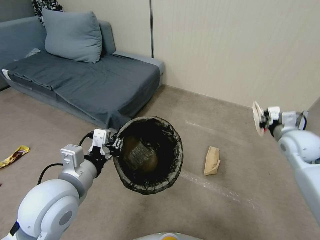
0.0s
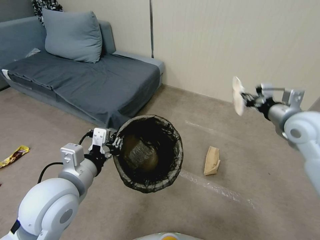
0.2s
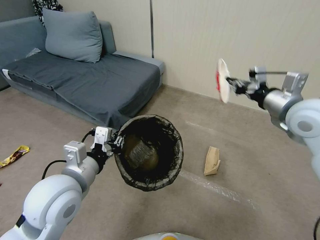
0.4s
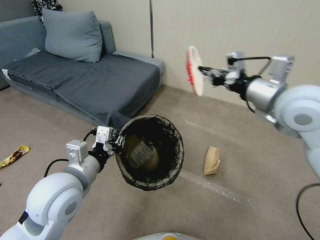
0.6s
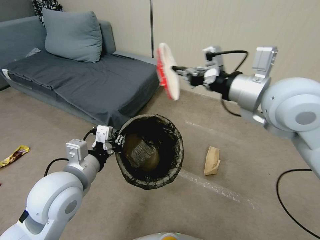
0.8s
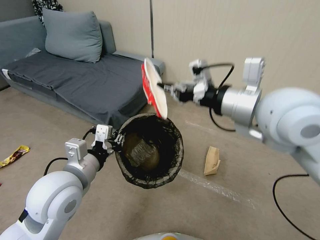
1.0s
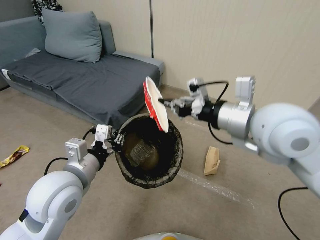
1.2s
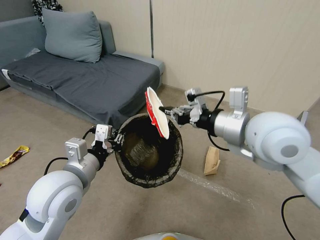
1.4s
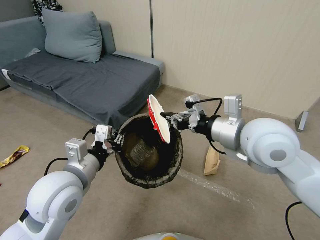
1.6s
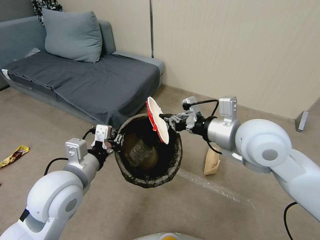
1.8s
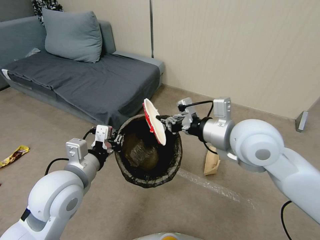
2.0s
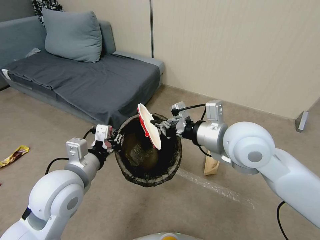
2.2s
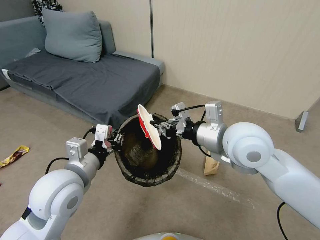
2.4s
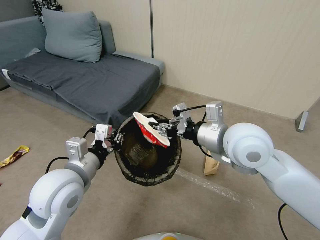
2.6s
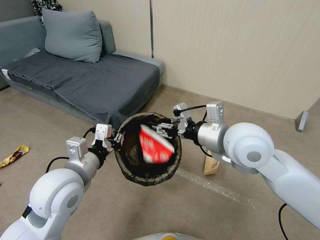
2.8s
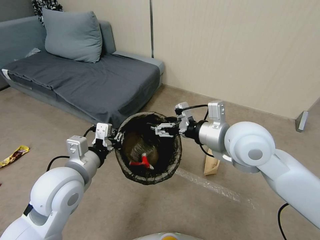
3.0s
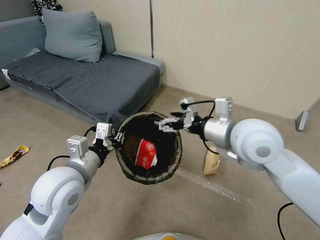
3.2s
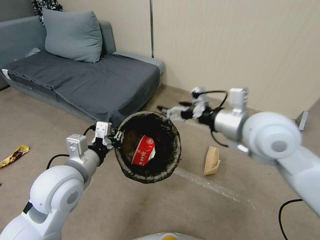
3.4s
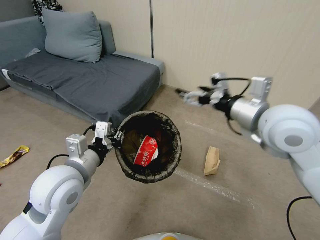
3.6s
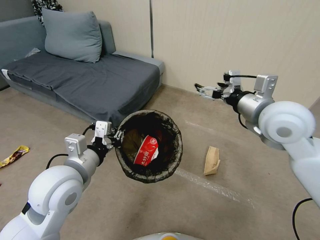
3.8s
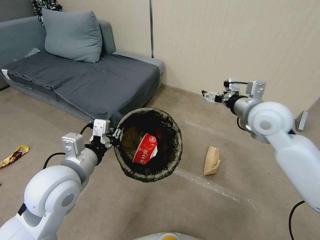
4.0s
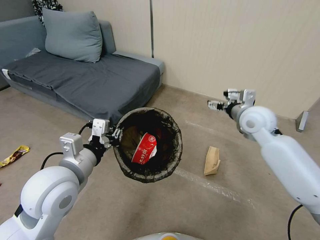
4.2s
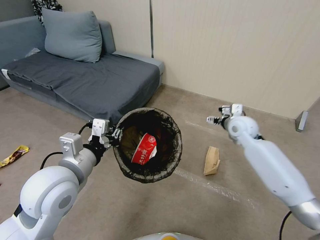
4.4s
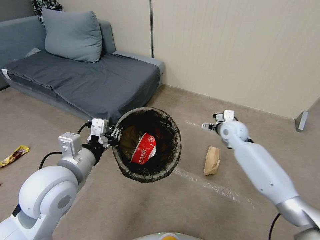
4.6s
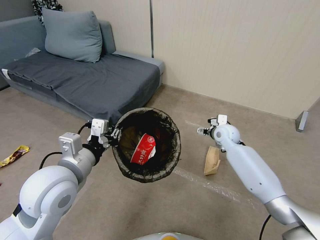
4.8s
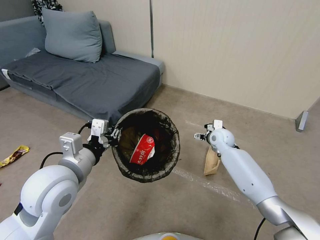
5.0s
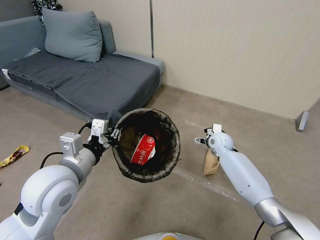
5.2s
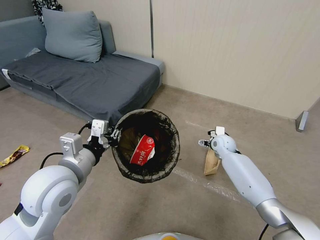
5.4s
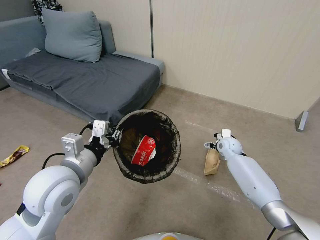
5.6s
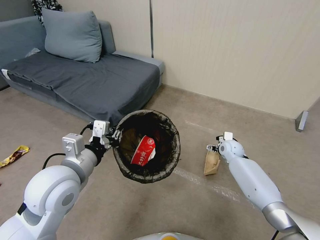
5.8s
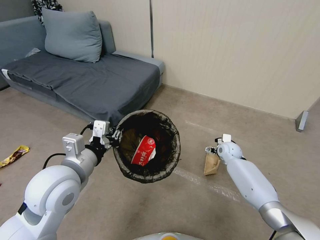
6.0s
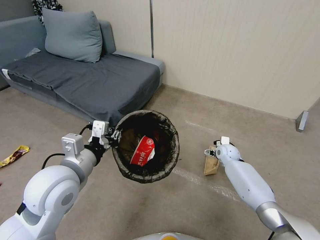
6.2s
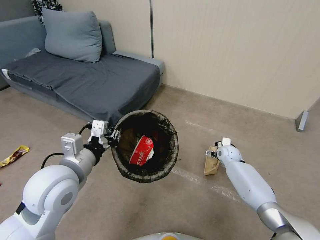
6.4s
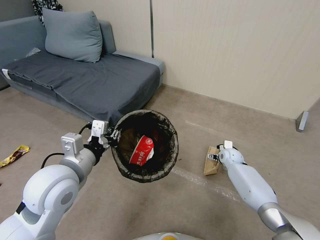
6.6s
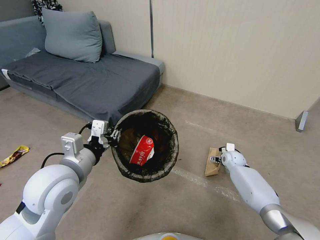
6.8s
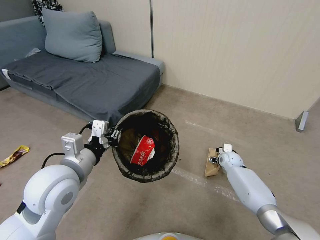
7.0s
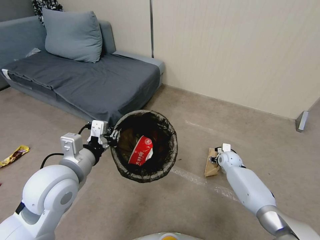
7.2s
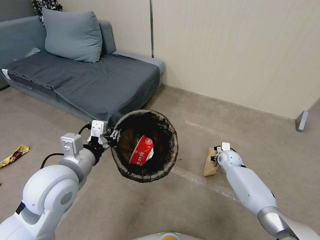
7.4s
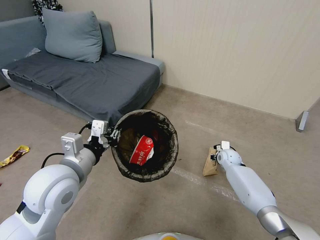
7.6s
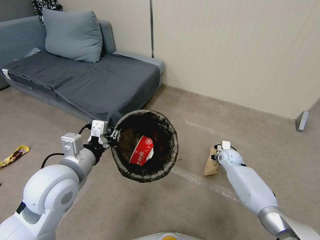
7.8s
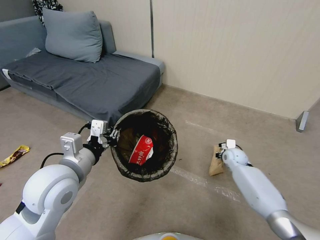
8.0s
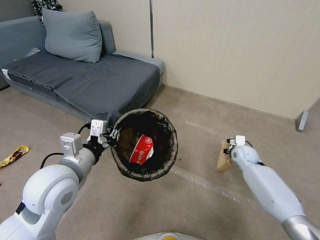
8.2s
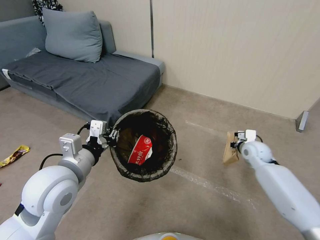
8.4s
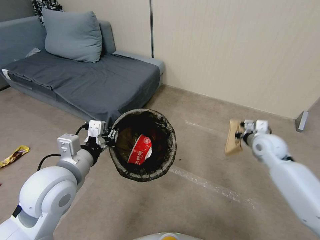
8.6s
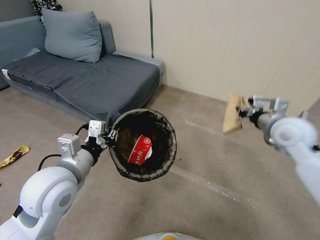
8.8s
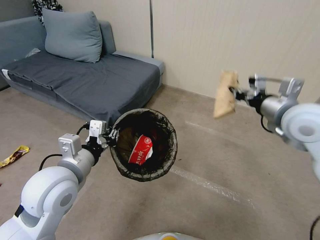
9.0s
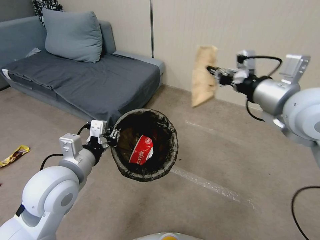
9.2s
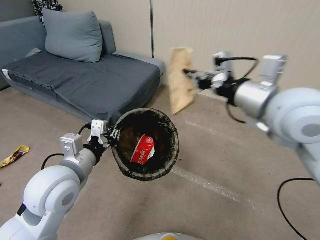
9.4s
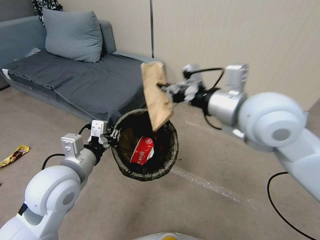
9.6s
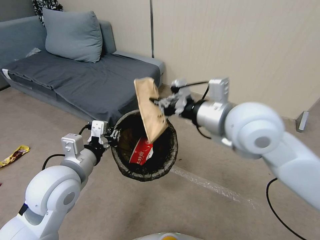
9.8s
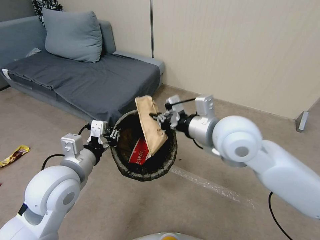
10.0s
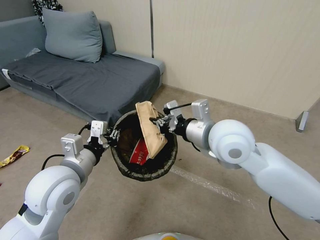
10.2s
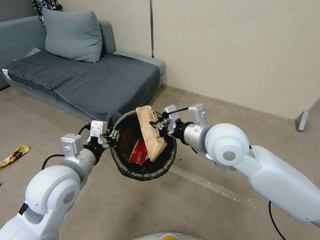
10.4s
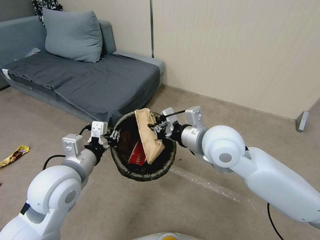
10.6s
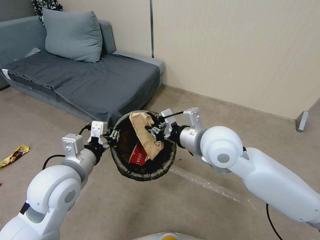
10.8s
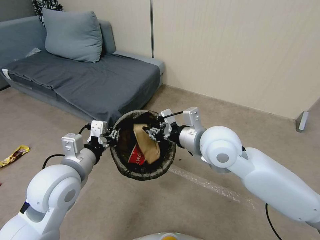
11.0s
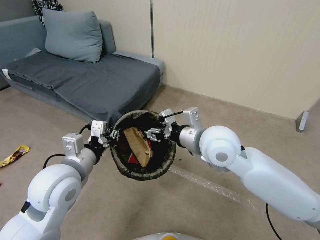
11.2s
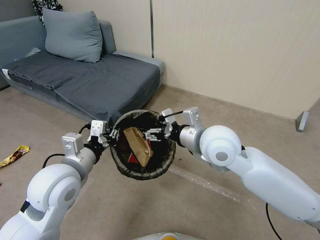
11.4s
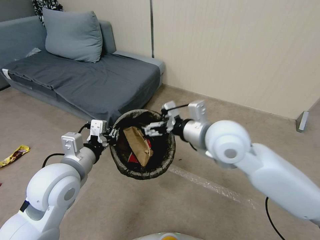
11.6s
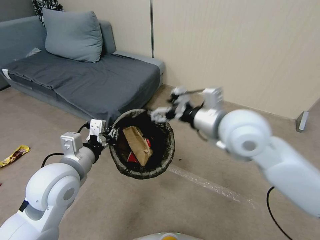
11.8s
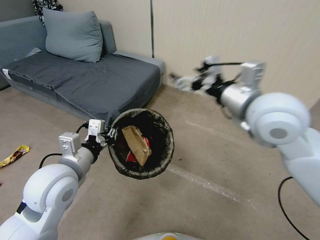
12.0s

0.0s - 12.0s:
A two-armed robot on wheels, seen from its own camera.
Task of the whole recording: Pick up the trash bin, then pick up the garbage from the floor and place it into the trash bin.
0.0s - 1.6s: The right gripper goes roughly 25 cm to the left and upward.
1.6s - 3.0s: The right gripper opens its fingers.
3.0s - 4.4s: The right gripper goes some 25 cm forward, downward and to the right.
4.4s - 6.0s: The right gripper is displaced downward by roughly 20 cm.
6.0s - 7.6s: The right gripper closes.
7.6s - 9.0s: The right gripper shifts approximately 40 cm upward.
9.0s - 10.4s: The right gripper travels to the left and downward by about 20 cm.
10.4s - 12.0s: The right gripper heads upward and to the right, covering about 10 cm, and opens up.

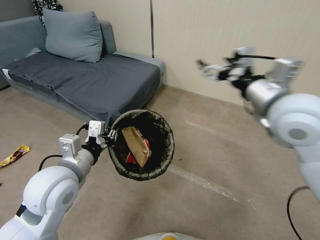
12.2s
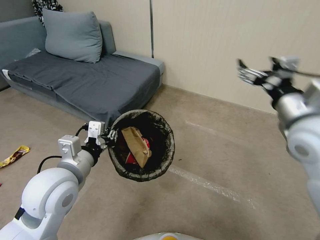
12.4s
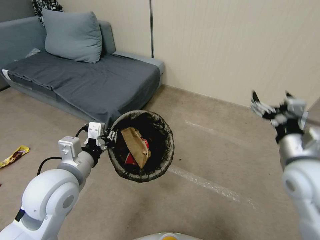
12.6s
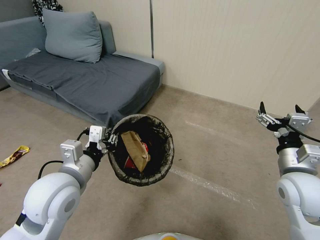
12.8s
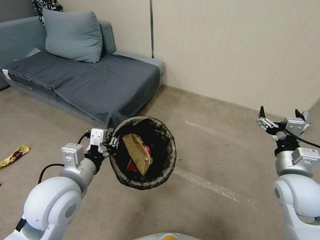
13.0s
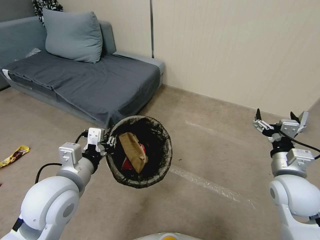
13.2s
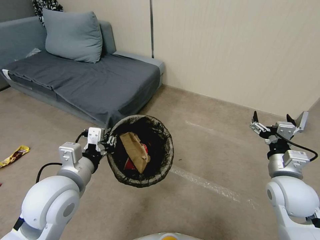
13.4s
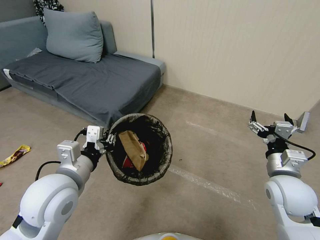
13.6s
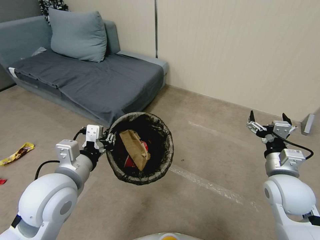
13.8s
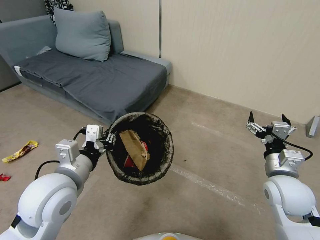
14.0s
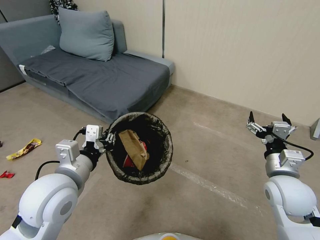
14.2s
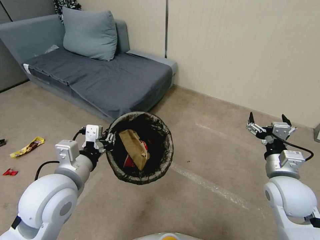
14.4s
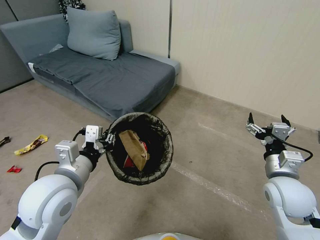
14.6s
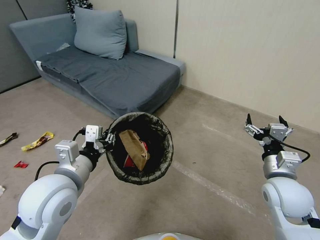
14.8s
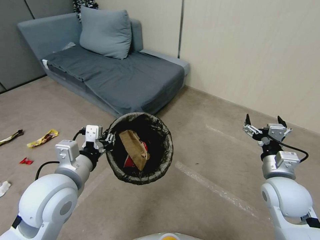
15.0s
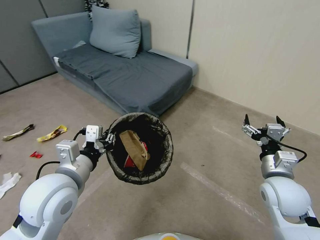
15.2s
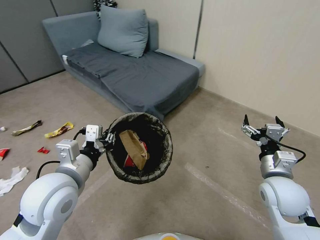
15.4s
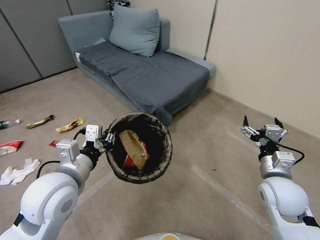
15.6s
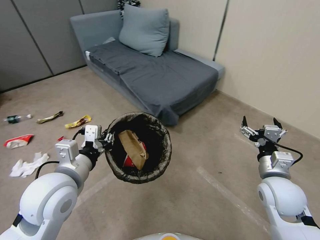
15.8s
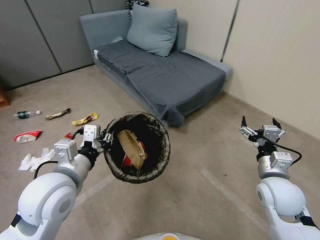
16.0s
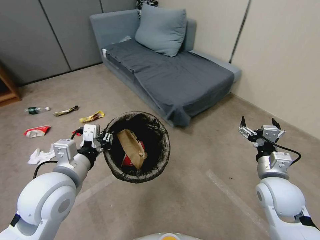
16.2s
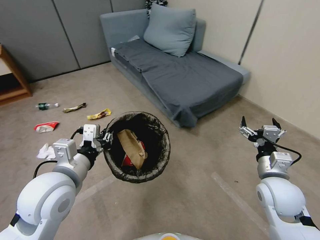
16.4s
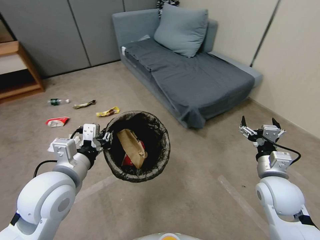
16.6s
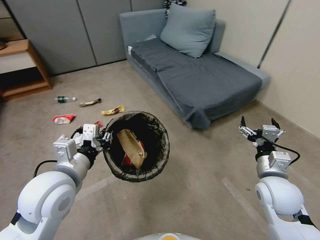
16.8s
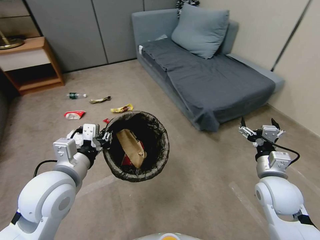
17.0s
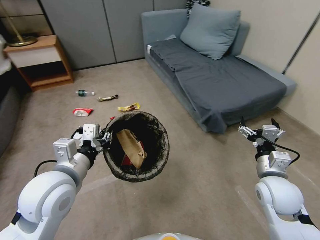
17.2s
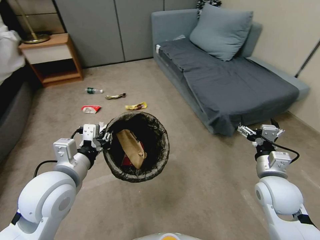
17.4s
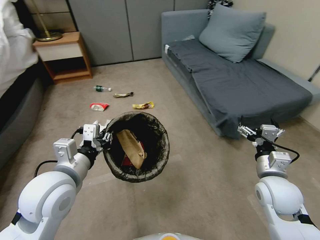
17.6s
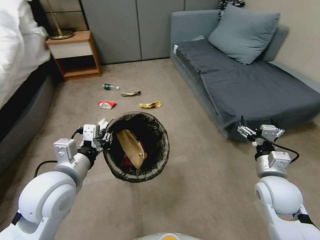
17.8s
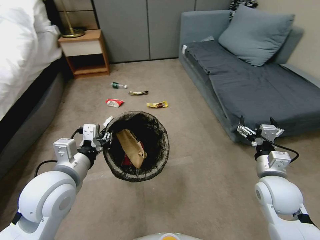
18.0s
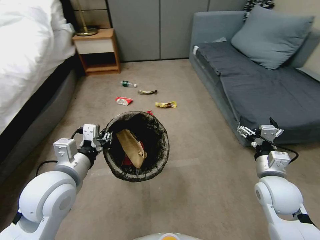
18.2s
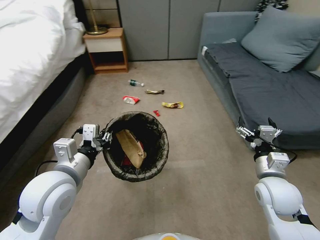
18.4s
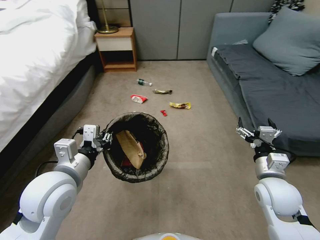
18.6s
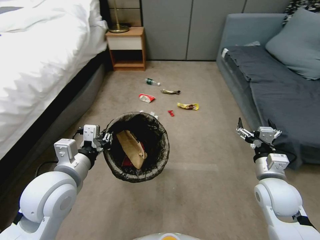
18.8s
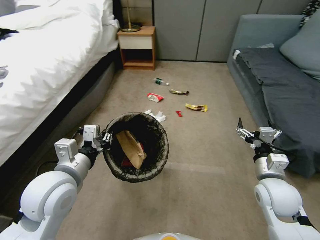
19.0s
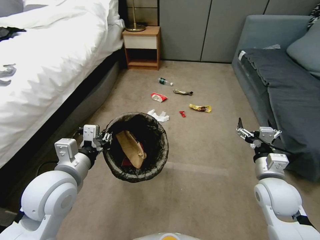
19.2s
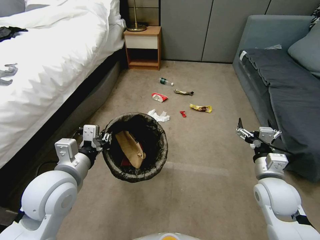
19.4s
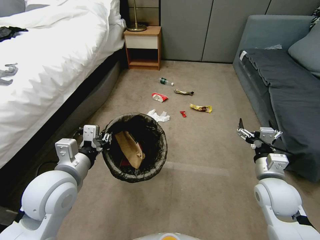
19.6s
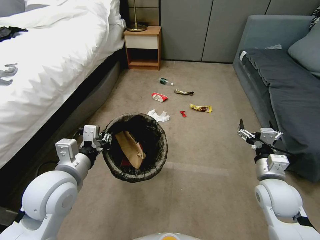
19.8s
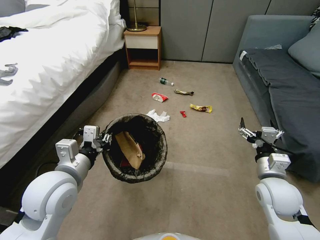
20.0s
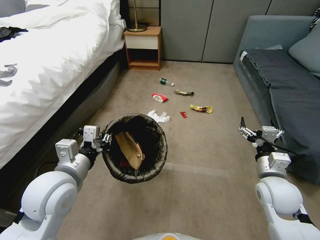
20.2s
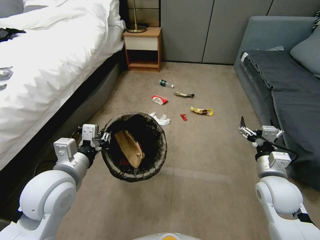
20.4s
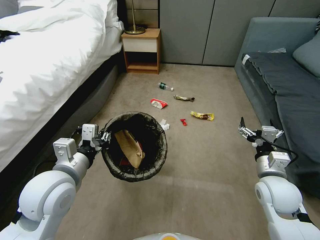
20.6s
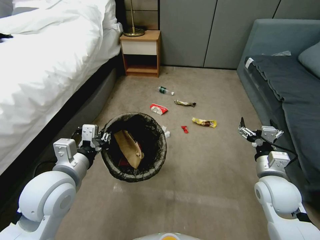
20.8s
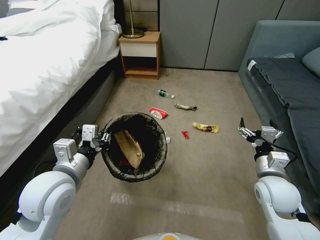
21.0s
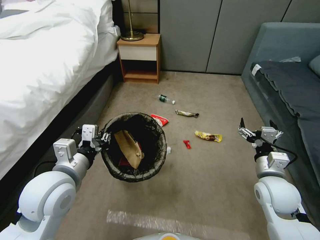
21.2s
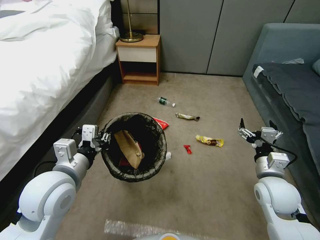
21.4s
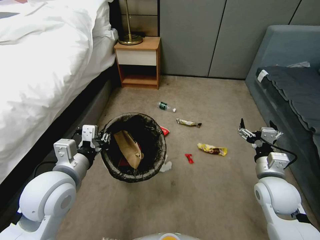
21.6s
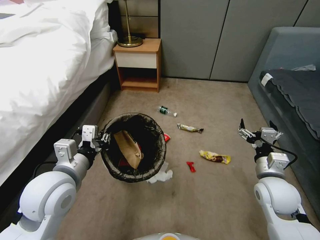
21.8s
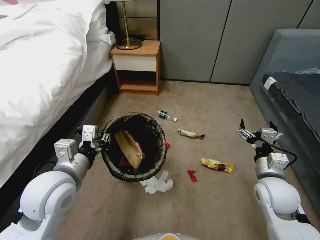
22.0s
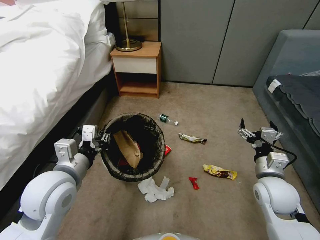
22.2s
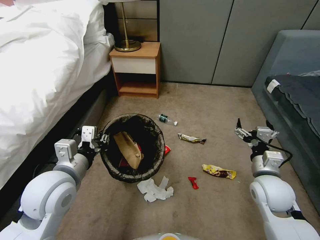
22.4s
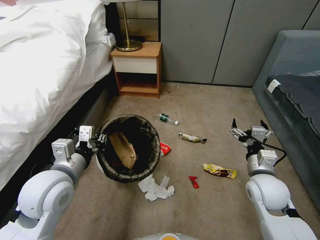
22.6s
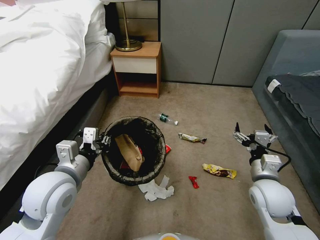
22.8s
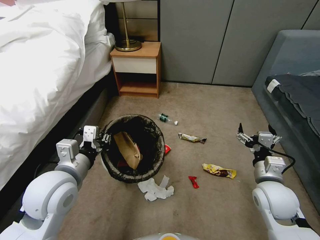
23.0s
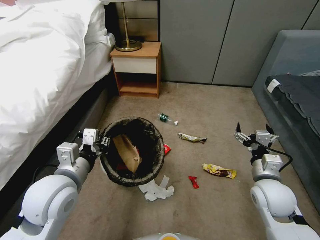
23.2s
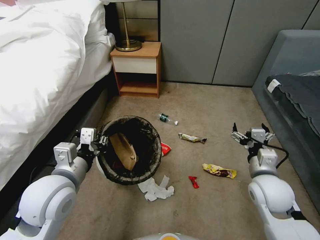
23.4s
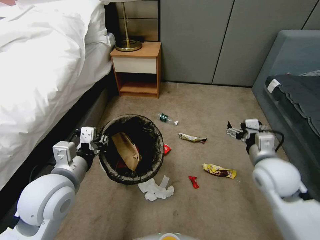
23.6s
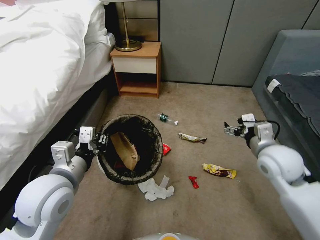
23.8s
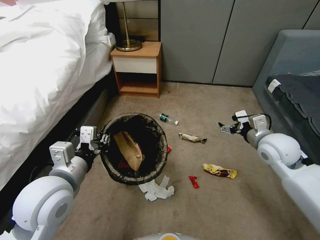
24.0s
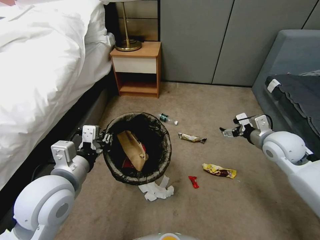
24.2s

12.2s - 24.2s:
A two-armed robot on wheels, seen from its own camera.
Task of the whole recording: Pick up the trash bin, then pick up the garbage from the floor and place it into the trash bin.
12.2s - 13.8s: The right gripper shifts some 20 cm downward.
22.6s - 24.2s: The right gripper moves forward, upward and to the right, about 15 cm.
